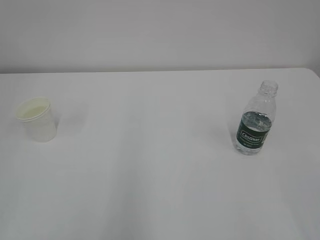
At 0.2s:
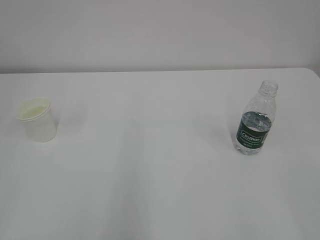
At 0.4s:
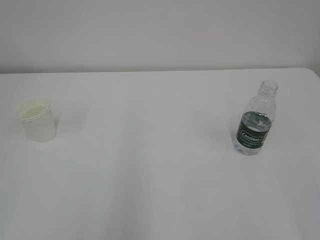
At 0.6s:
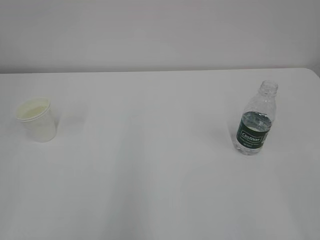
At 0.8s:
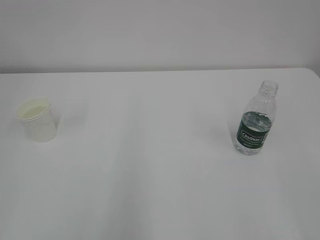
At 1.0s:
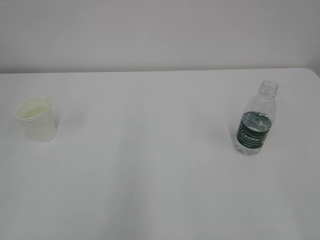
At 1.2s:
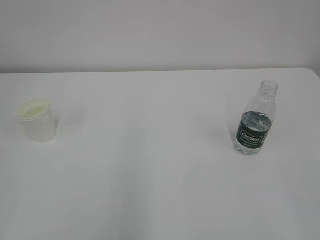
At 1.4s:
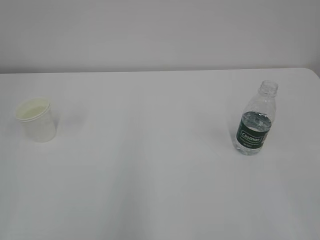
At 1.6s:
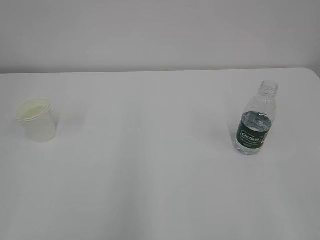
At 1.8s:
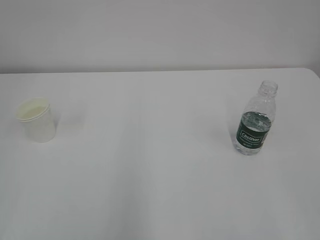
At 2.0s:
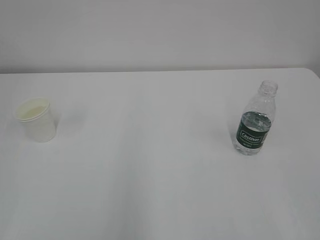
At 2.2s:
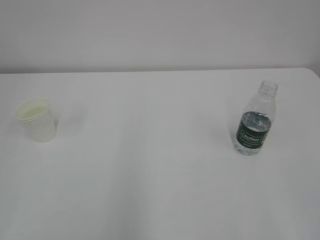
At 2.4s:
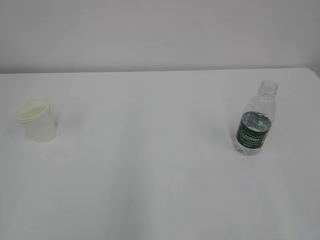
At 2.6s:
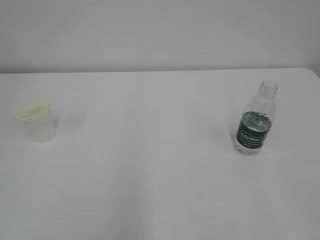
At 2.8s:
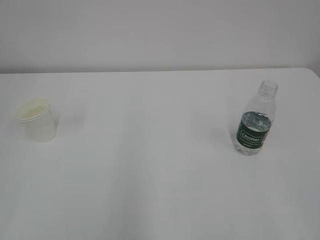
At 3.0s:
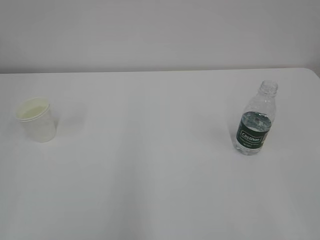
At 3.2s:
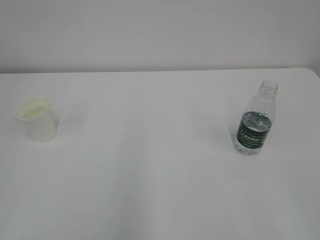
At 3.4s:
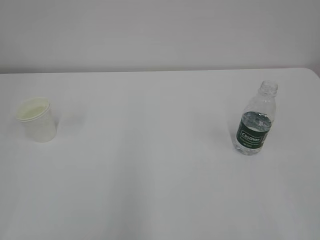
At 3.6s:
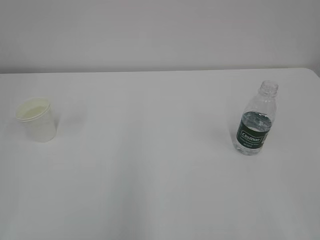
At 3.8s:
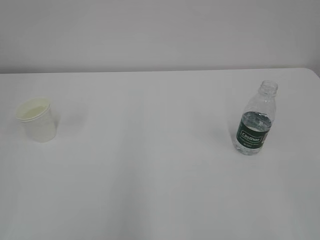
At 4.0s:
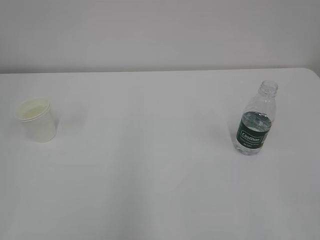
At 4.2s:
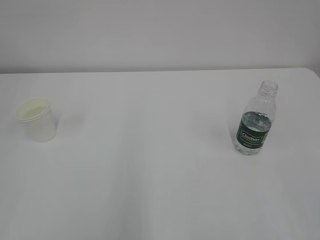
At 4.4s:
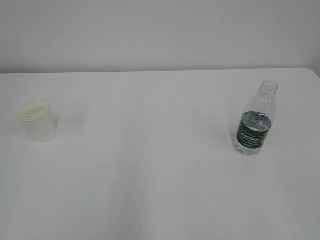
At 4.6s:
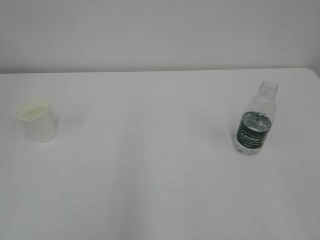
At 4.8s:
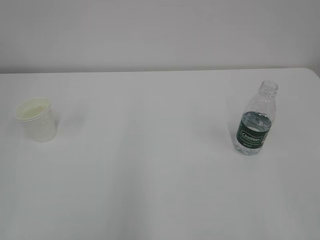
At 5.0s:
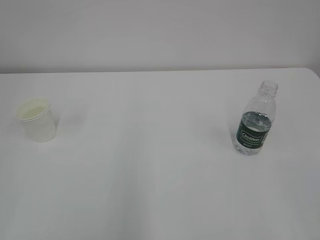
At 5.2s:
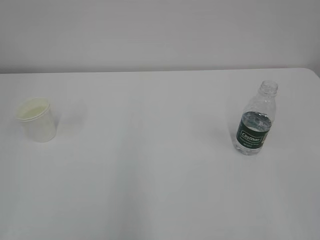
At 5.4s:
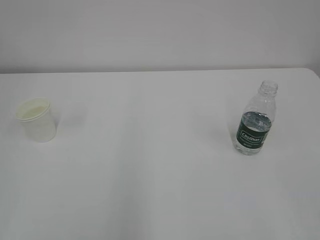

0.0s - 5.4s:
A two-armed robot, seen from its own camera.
1.4s - 2.8s: Neither gripper changes place.
4.0s - 5.4s: Both grippers stay about where they are.

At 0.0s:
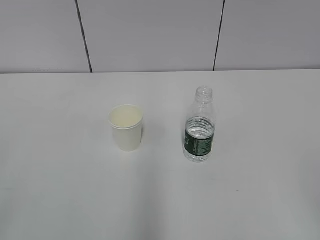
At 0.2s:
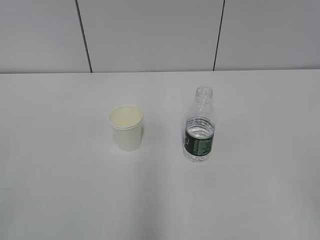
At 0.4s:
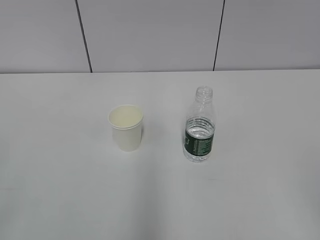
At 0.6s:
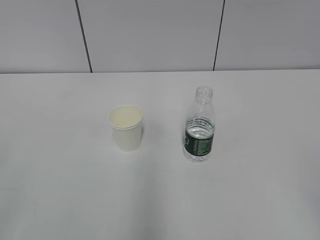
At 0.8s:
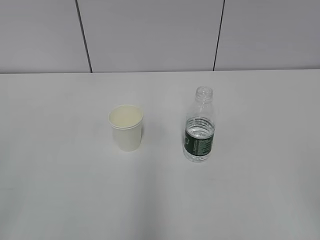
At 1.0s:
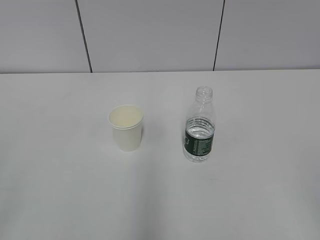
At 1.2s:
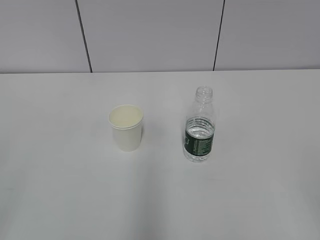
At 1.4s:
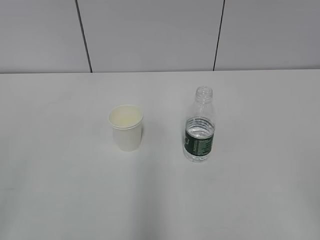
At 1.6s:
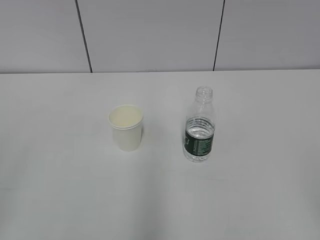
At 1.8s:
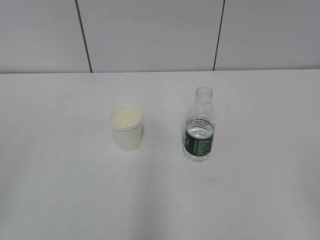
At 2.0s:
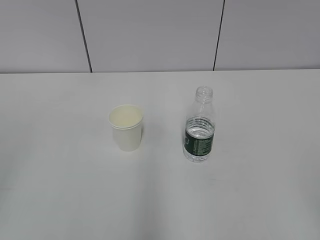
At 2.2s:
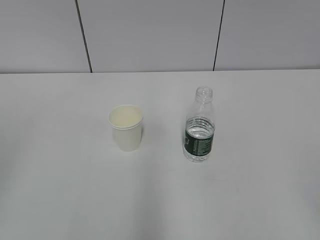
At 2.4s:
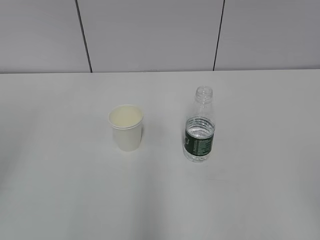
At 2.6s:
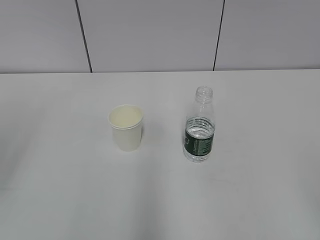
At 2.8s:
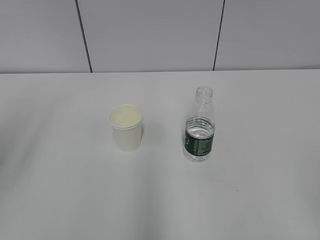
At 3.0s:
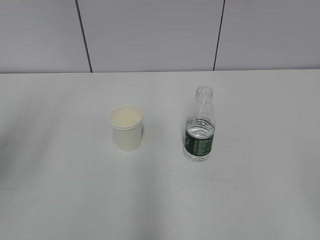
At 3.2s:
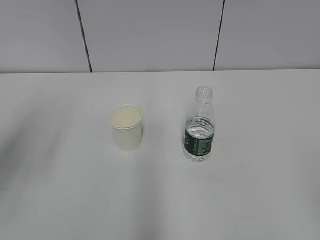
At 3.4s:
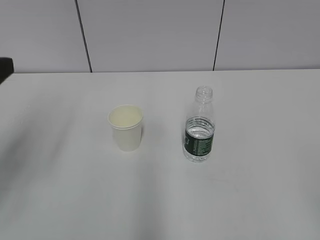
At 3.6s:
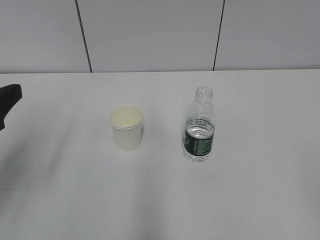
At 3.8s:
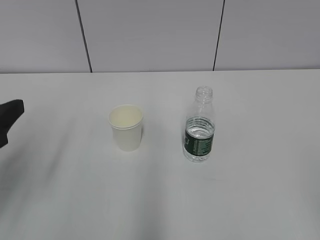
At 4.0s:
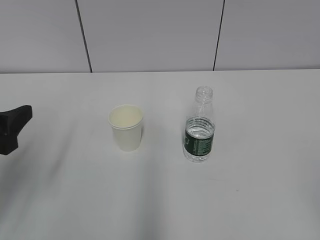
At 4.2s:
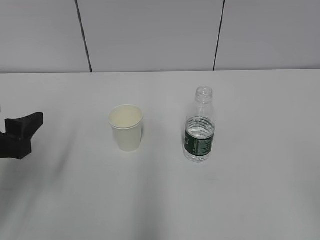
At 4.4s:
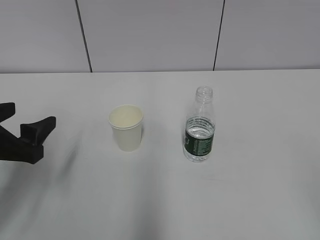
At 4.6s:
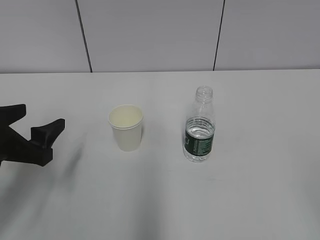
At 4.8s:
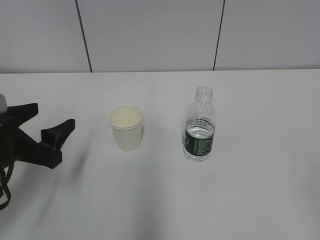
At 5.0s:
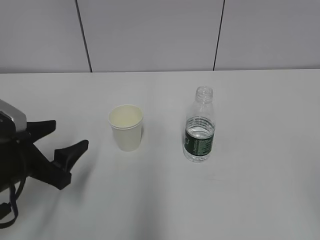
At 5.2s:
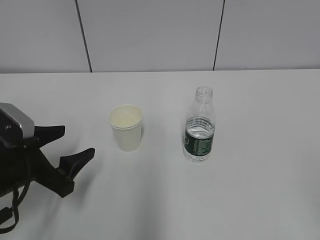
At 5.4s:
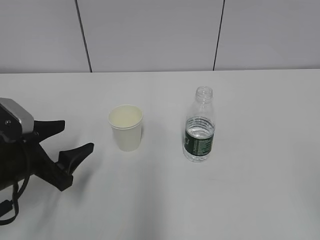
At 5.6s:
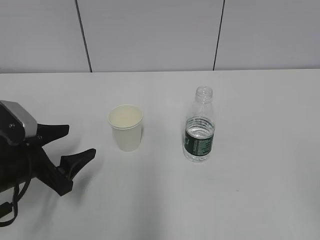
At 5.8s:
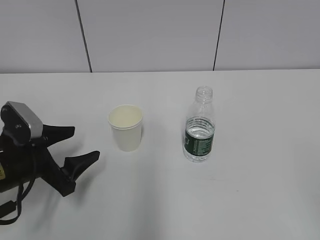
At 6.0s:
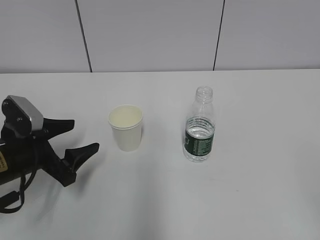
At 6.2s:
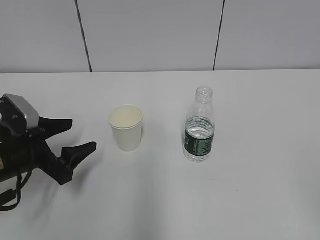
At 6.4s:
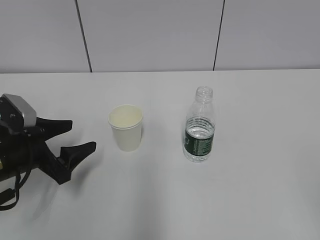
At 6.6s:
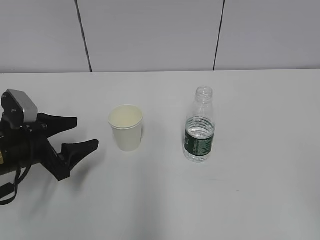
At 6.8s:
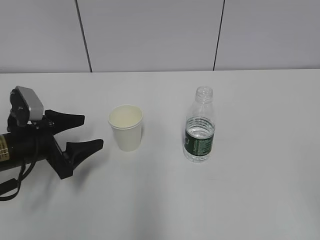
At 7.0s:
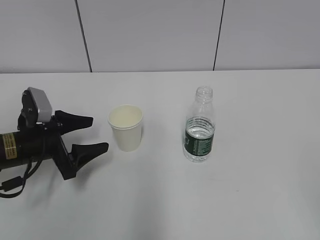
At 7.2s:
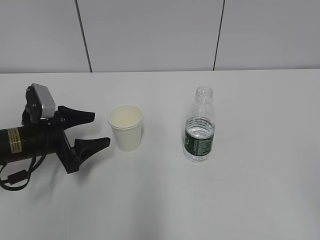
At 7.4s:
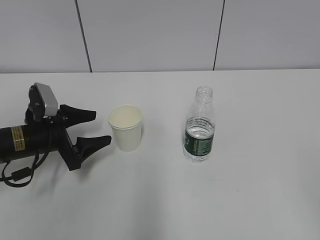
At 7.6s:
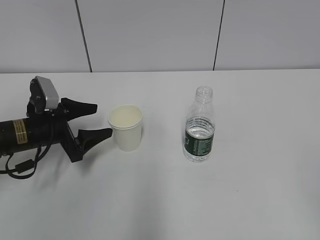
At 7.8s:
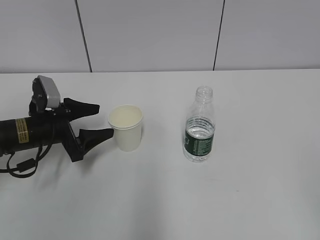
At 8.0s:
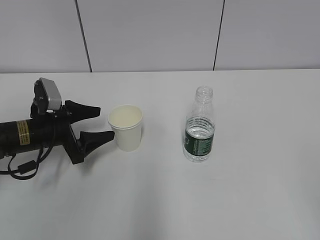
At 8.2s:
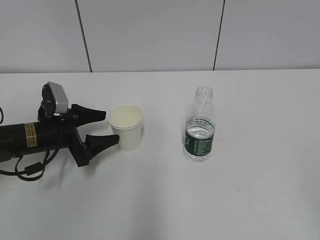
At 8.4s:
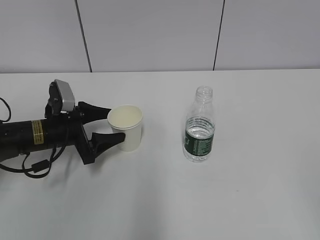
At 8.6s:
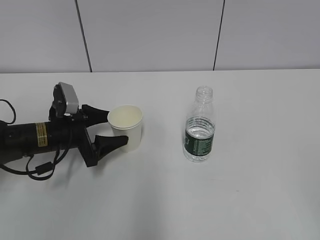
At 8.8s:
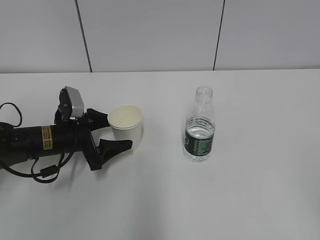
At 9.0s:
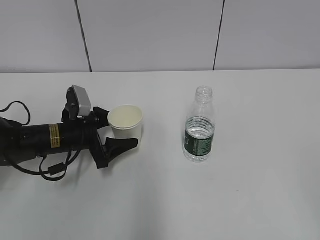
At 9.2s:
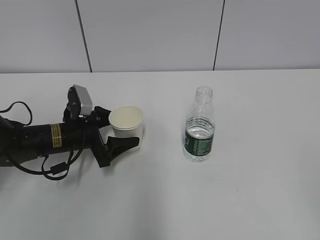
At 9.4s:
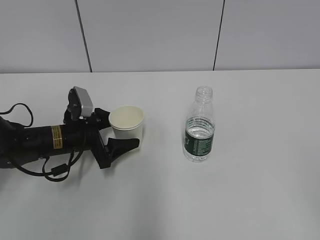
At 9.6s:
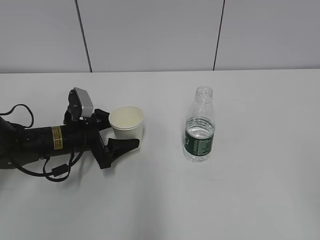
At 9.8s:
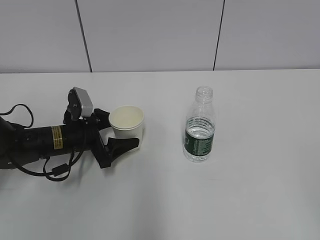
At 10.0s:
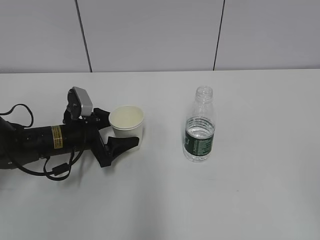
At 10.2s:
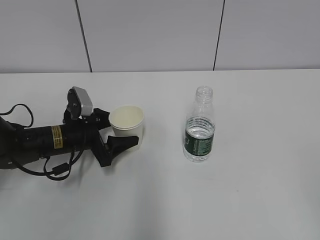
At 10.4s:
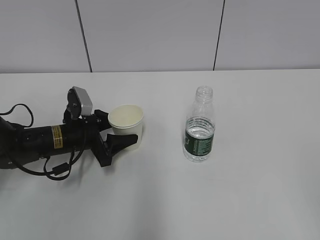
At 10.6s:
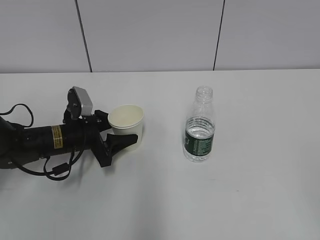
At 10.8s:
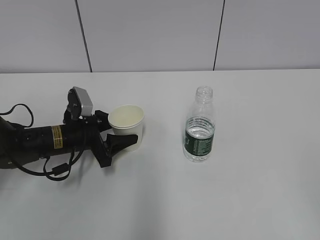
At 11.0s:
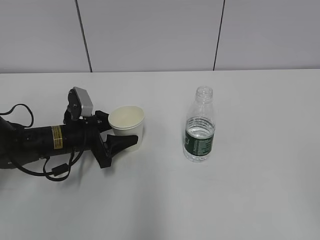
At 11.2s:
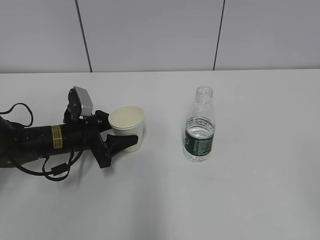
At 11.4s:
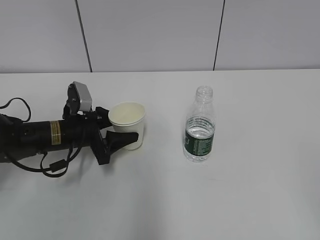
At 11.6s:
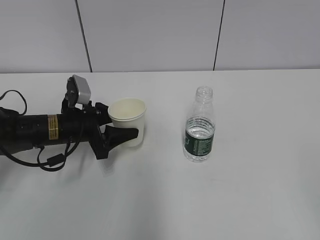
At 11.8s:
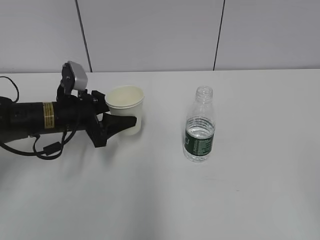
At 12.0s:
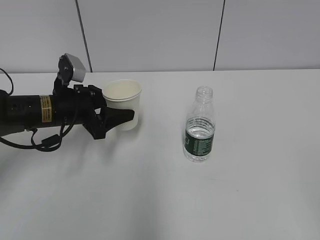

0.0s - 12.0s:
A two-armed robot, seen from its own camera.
Step, 0.0s - 9.2s: Grab the paper cup with the left hand.
1.6s - 3.0s: The left gripper is displaced forward by approximately 15 cm.
3.0s - 4.4s: The left gripper goes about 15 cm downward.
4.4s - 6.0s: The left gripper moves downward, some 5 cm.
6.0s - 7.6s: The left gripper is displaced forward by roughly 5 cm.
7.6s - 9.0s: The left gripper changes place by about 5 cm.
9.0s - 10.4s: The left gripper closes its fingers.
10.4s - 12.0s: The left gripper heads upward, covering about 5 cm.

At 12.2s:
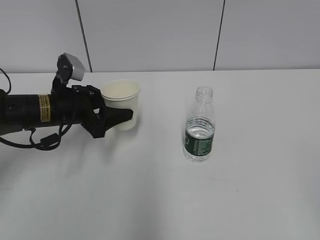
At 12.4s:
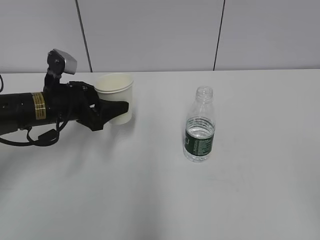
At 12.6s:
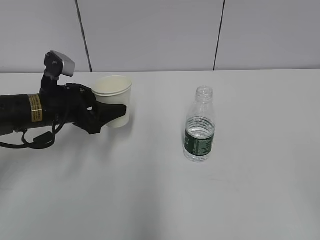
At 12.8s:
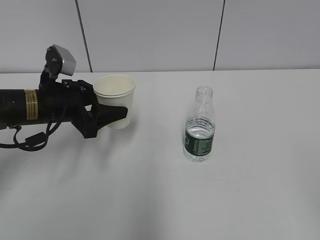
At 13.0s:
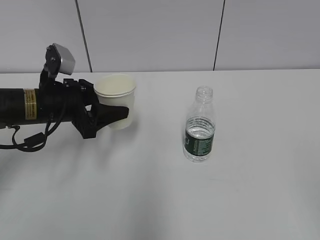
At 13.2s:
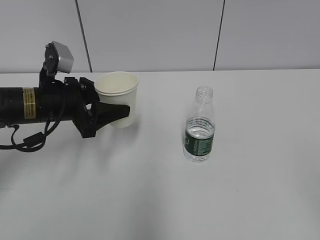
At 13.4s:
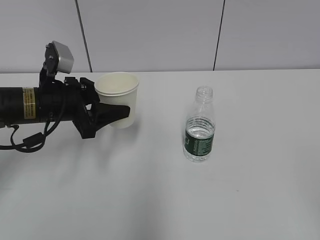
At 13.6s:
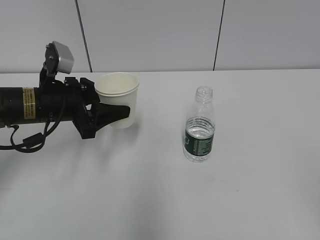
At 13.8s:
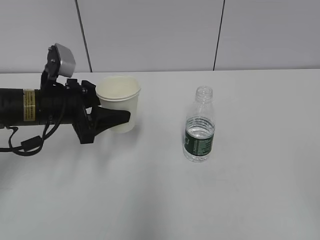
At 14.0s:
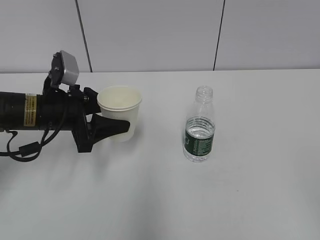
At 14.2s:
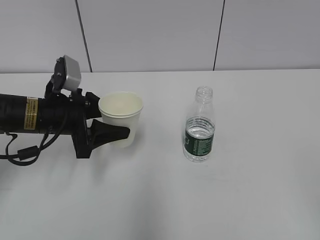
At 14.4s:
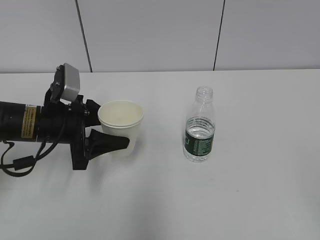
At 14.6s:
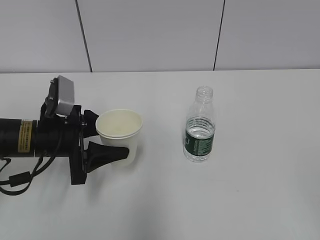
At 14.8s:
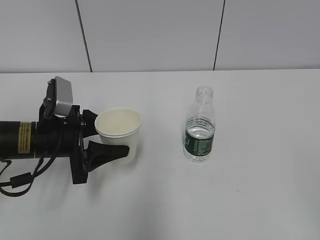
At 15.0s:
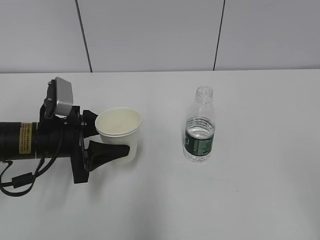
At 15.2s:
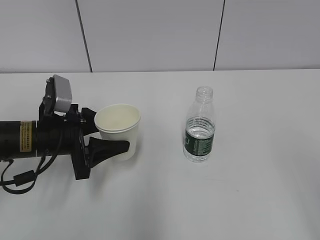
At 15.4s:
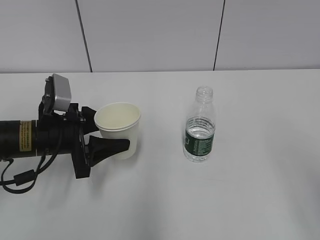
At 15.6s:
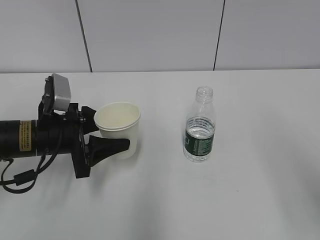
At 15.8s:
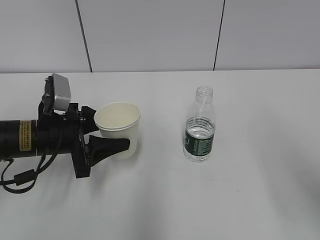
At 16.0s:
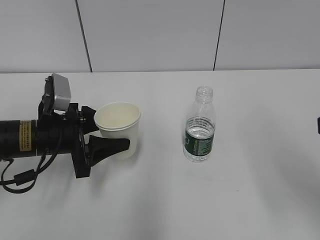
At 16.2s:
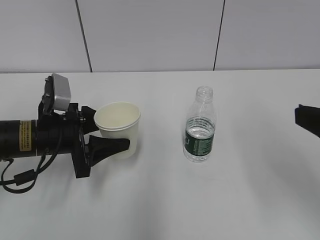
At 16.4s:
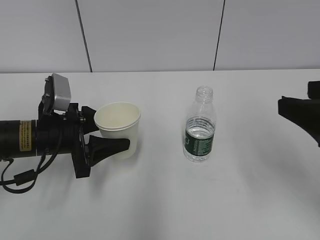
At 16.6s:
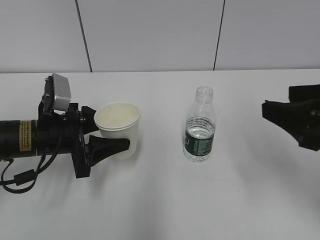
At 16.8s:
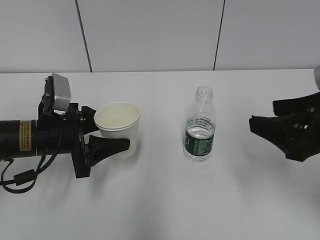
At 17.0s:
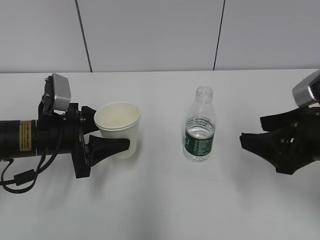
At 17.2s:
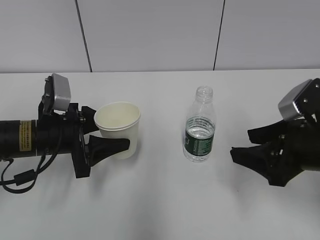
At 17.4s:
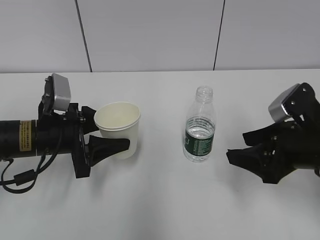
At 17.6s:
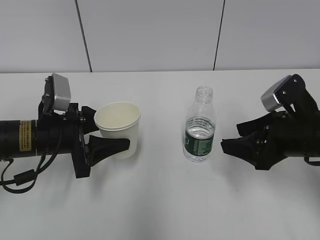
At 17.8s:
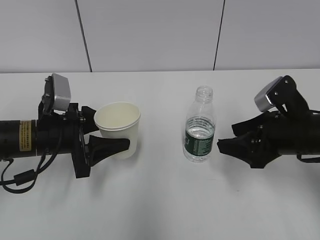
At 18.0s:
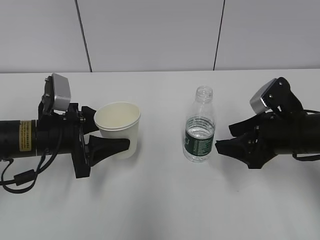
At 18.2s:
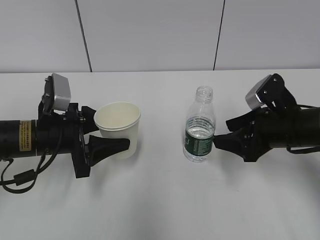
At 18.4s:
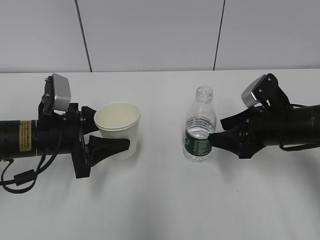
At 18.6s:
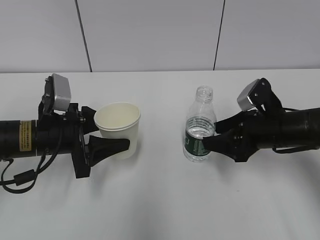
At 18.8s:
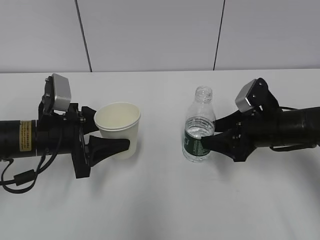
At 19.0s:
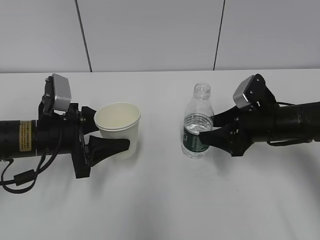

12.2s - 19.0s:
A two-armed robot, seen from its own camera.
Step, 12.2s - 18.6s: Grab the water bottle with the right hand.
12.2s - 13.6s: There are only small adjustments of the grippers.
13.6s - 15.0s: The left gripper ends up roughly 5 cm from where it was.
15.0s - 16.2s: The right gripper travels forward by about 15 cm.
16.2s - 17.6s: The right gripper moves forward and downward, roughly 15 cm.
17.6s - 19.0s: The right gripper moves forward, about 5 cm.
